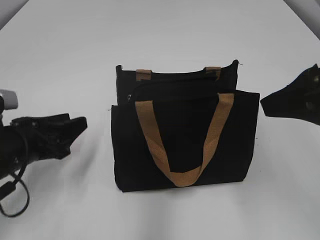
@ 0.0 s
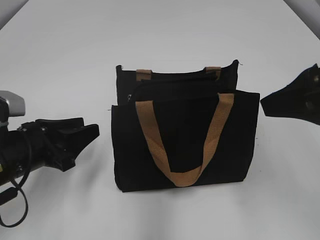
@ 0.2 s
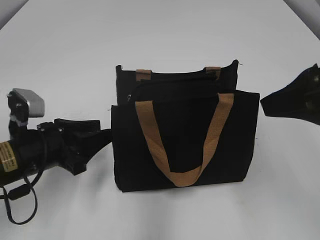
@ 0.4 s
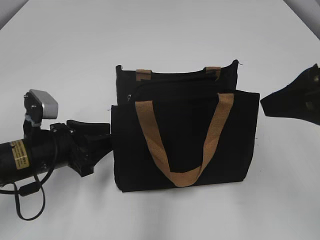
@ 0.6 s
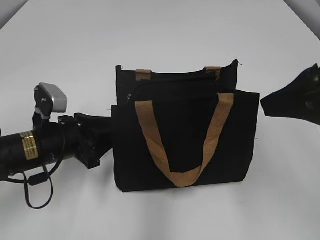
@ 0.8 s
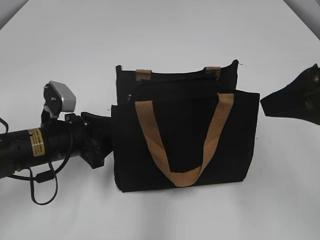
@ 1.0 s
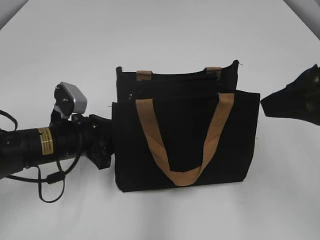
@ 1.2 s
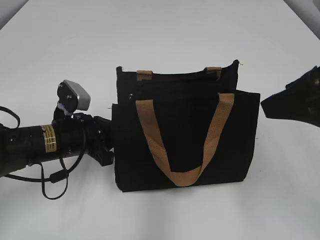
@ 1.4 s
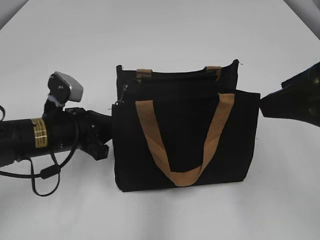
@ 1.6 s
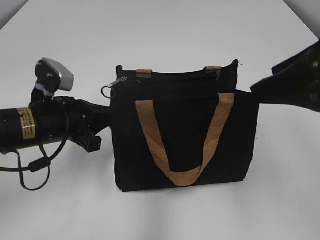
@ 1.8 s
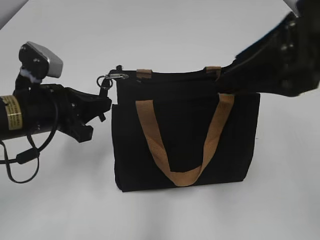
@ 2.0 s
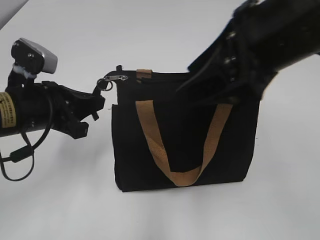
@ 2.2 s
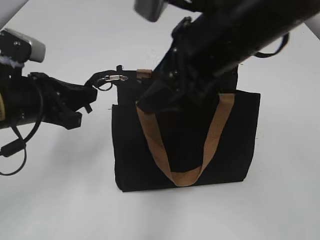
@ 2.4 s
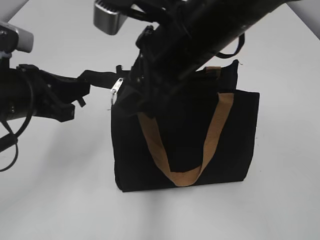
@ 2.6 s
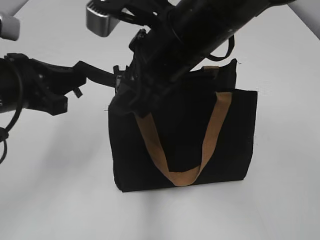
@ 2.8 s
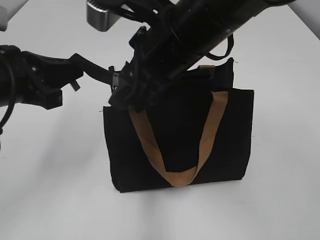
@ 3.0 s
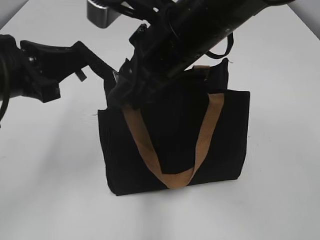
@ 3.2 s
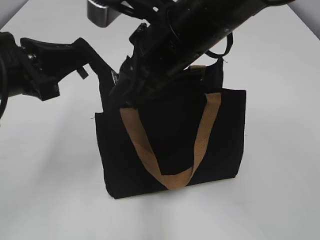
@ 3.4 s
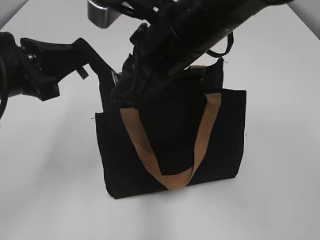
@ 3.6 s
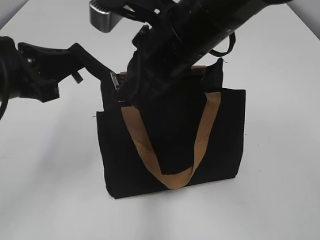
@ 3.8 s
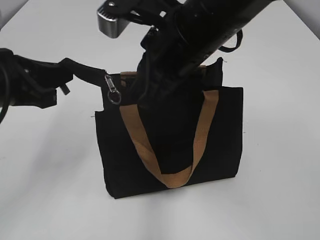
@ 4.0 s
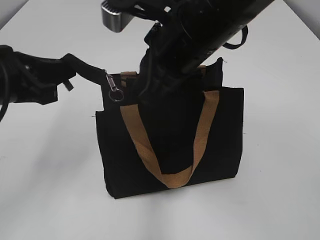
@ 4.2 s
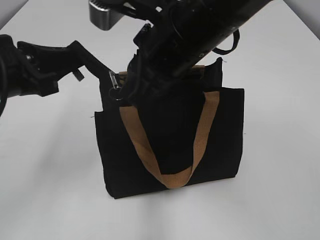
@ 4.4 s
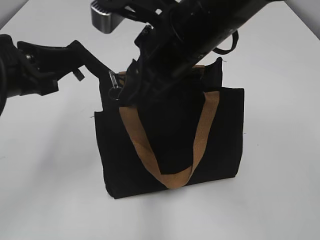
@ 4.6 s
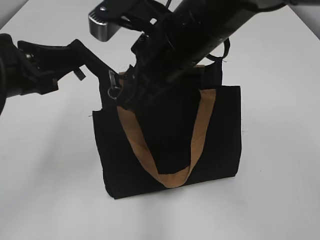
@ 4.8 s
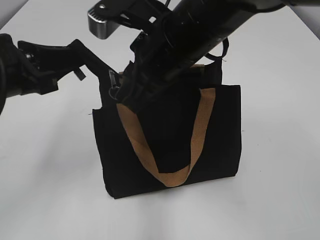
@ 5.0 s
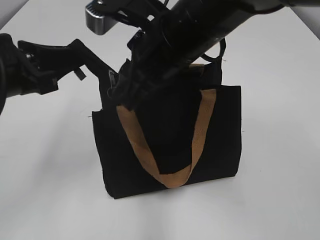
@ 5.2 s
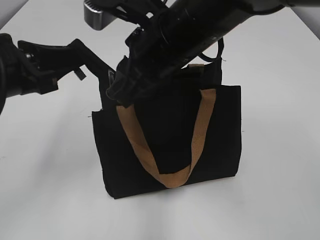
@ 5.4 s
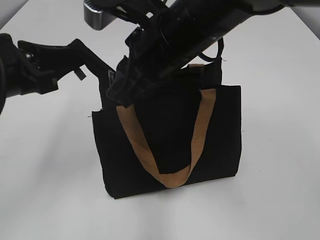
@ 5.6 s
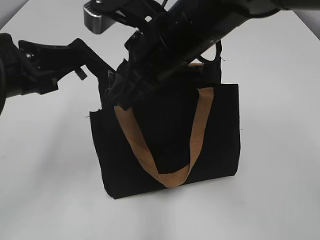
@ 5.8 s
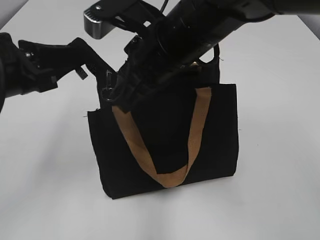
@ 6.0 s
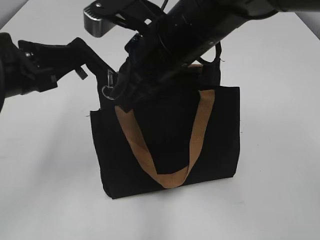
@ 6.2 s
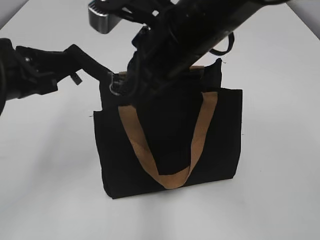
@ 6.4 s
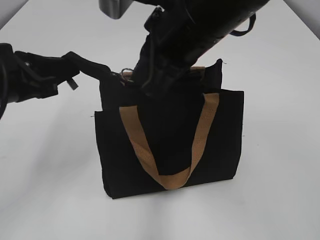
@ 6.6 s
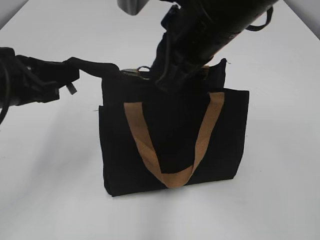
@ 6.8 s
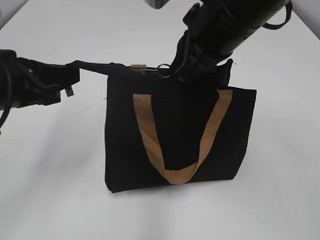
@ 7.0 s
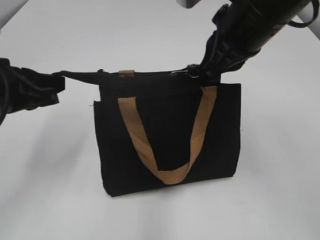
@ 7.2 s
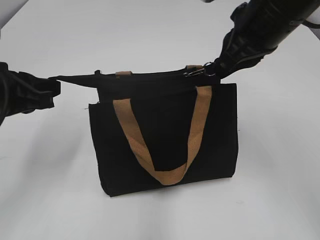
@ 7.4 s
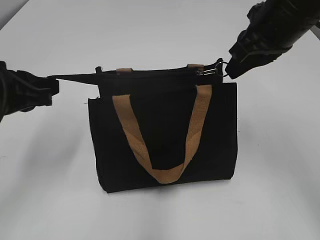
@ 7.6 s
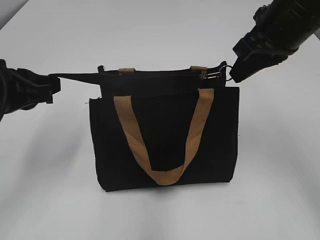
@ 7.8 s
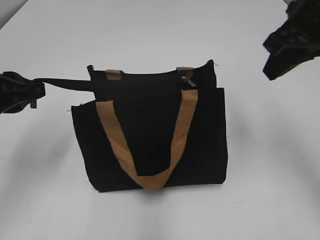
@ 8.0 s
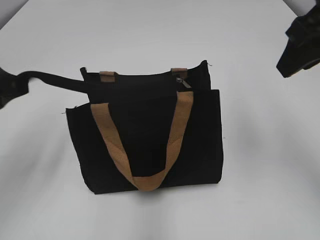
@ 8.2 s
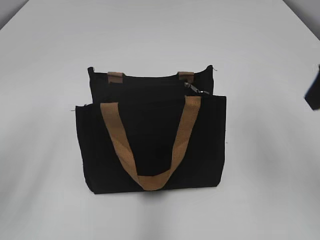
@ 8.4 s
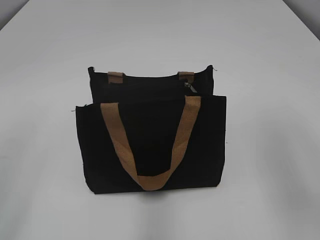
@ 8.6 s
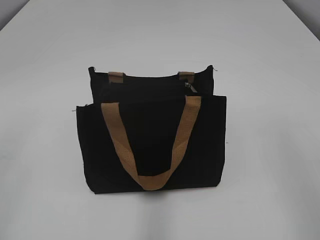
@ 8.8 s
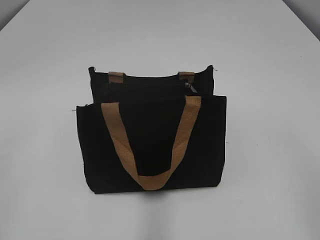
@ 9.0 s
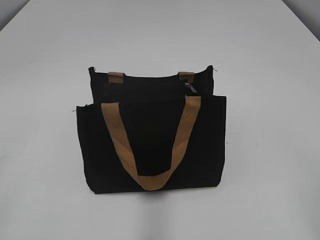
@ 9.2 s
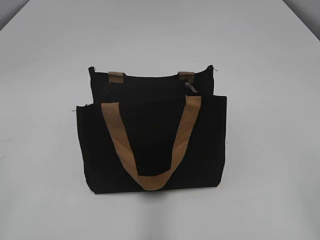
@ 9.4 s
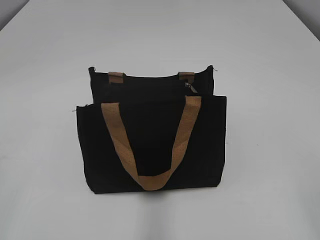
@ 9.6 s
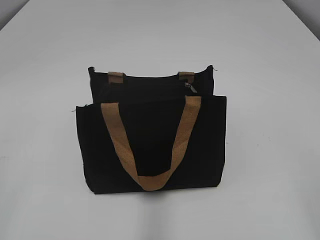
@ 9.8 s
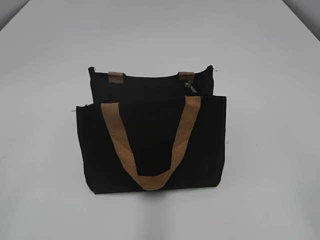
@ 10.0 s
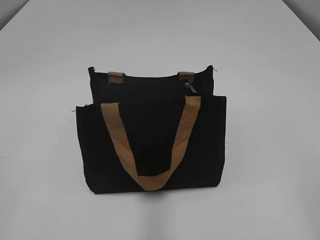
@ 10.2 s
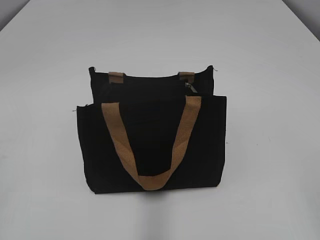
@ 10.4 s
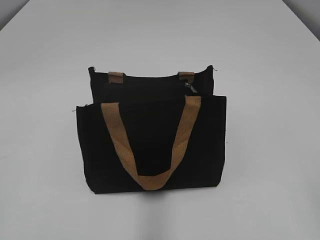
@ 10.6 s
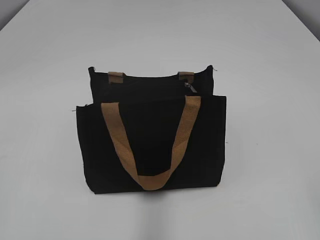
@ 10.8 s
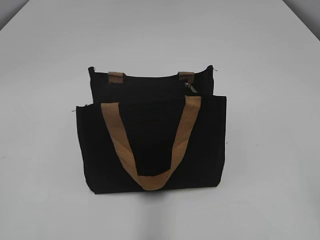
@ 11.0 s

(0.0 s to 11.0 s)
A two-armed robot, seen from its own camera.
Step, 0.0 s - 7.8 s: Zip up the bag with your right hand.
Step, 8.0 s - 8.2 s: Grab the zipper with your left hand.
0.0 s - 1.6 s: The left gripper is displaced to the right by some 5 cm, and closes.
1.6 s - 3.2 s: The left gripper shifts approximately 15 cm upward, while the right gripper travels to the left and forward by approximately 20 cm.
3.2 s - 4.8 s: The right gripper closes, then reopens.
4.8 s - 6.2 s: The right gripper closes.
6.2 s - 7.8 s: The right gripper travels to the right by about 15 cm.
7.8 s - 9.4 s: The right gripper travels backward by approximately 30 cm, and opens. Meanwhile the left gripper shifts some 25 cm backward and to the left, and opens.

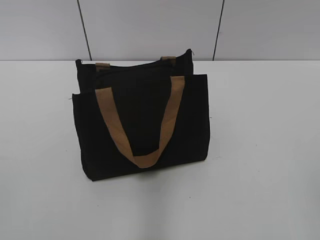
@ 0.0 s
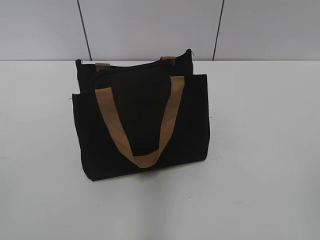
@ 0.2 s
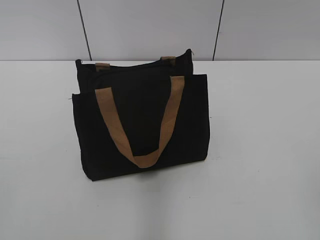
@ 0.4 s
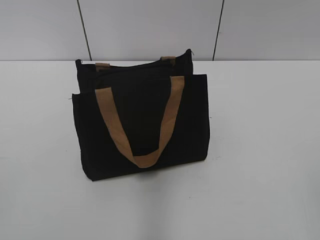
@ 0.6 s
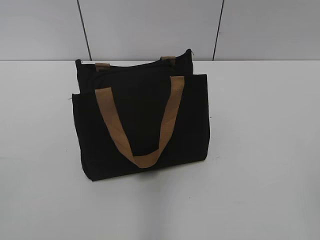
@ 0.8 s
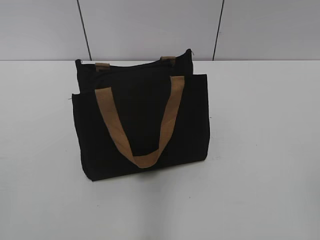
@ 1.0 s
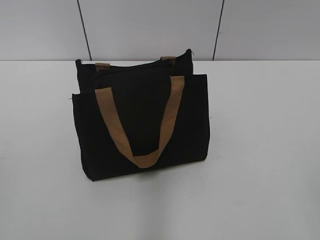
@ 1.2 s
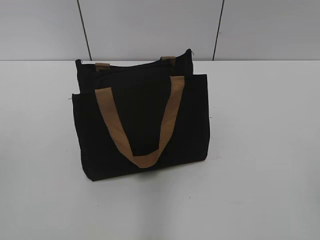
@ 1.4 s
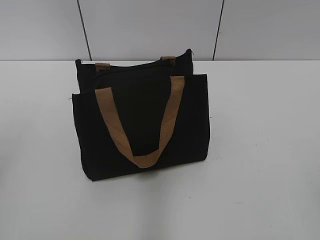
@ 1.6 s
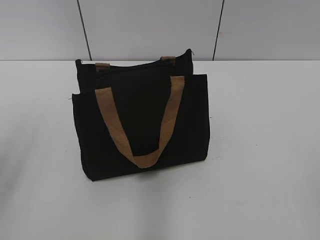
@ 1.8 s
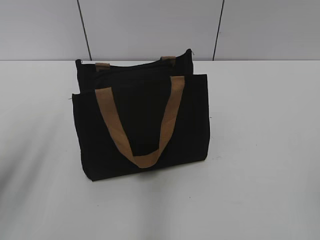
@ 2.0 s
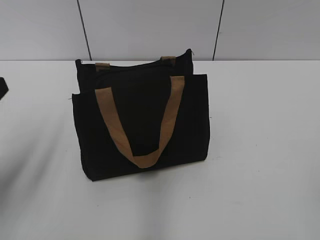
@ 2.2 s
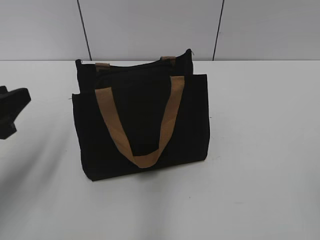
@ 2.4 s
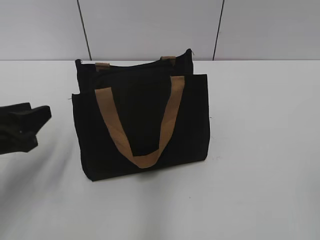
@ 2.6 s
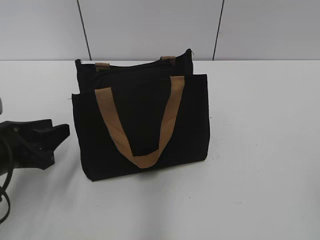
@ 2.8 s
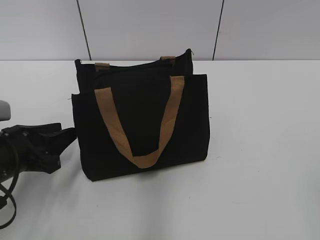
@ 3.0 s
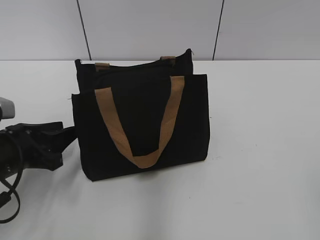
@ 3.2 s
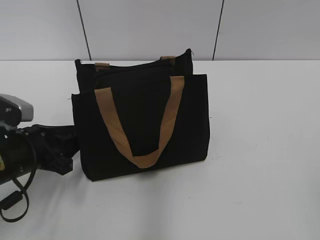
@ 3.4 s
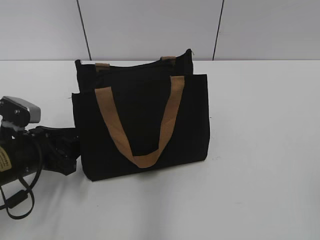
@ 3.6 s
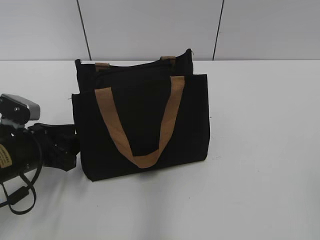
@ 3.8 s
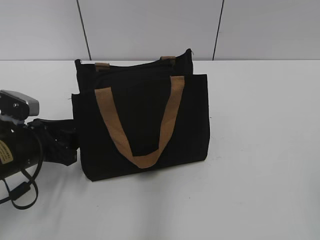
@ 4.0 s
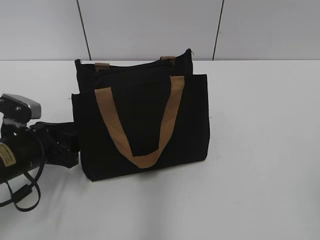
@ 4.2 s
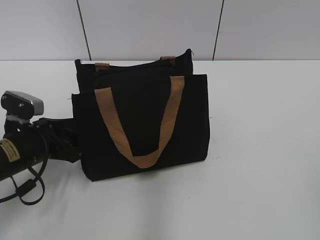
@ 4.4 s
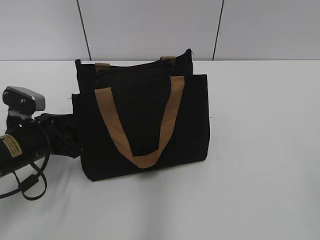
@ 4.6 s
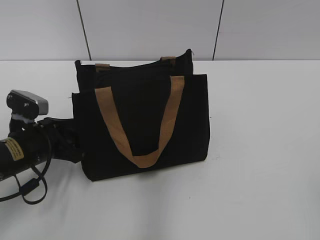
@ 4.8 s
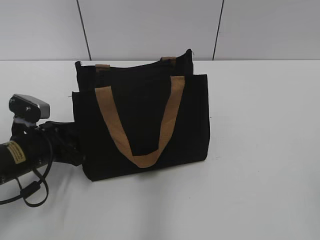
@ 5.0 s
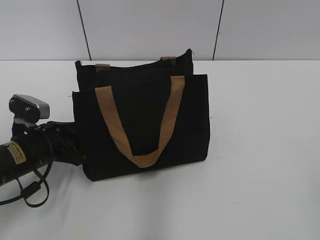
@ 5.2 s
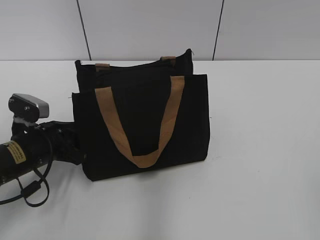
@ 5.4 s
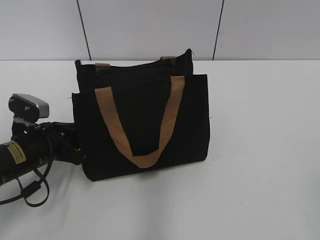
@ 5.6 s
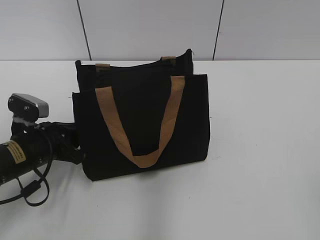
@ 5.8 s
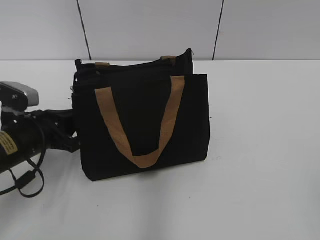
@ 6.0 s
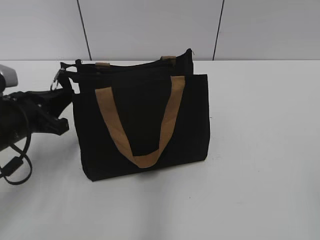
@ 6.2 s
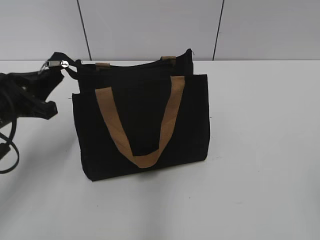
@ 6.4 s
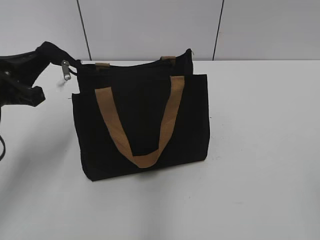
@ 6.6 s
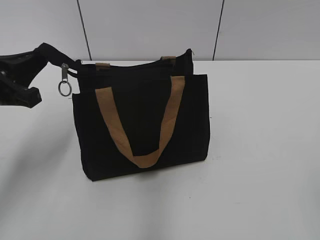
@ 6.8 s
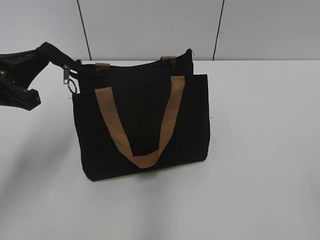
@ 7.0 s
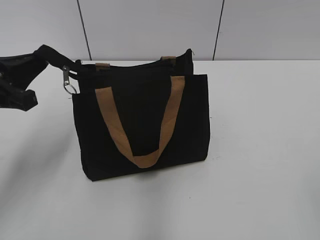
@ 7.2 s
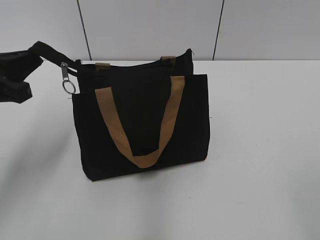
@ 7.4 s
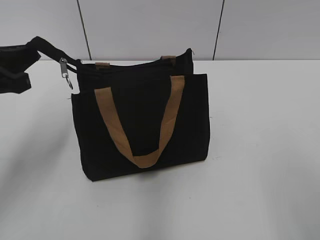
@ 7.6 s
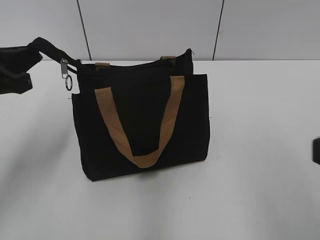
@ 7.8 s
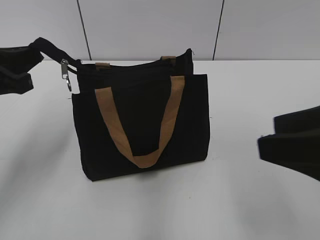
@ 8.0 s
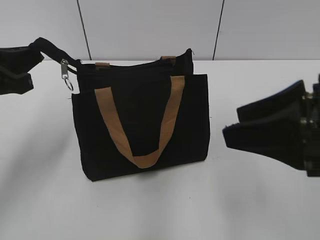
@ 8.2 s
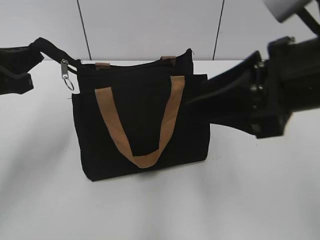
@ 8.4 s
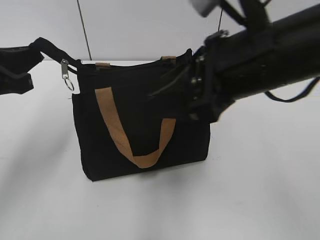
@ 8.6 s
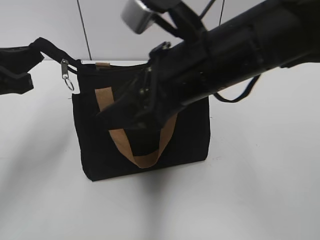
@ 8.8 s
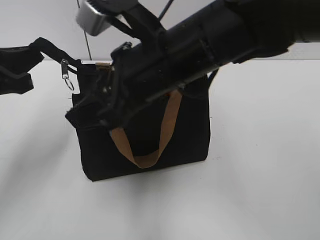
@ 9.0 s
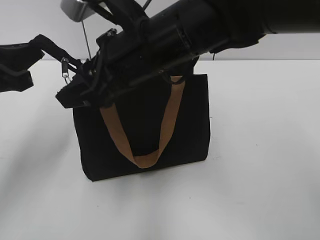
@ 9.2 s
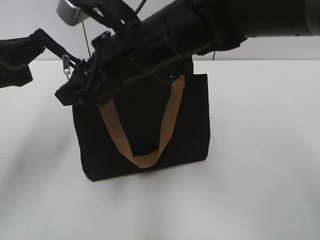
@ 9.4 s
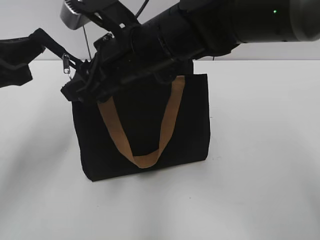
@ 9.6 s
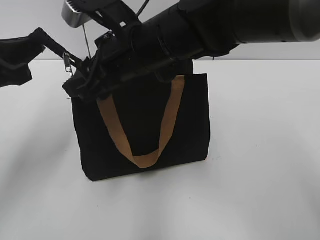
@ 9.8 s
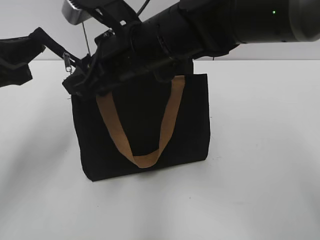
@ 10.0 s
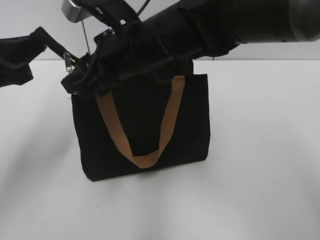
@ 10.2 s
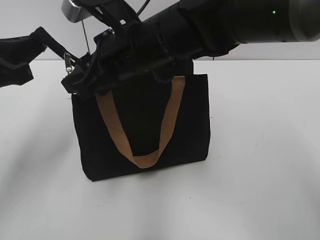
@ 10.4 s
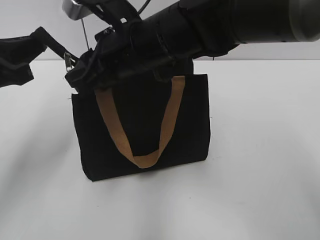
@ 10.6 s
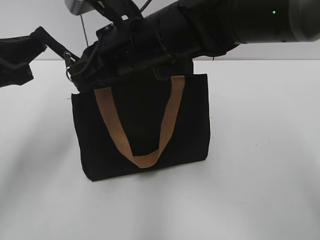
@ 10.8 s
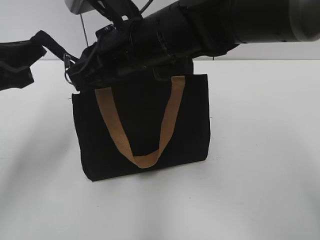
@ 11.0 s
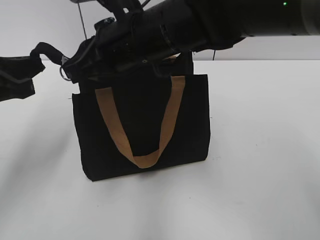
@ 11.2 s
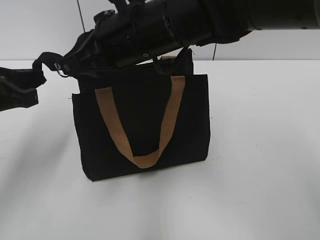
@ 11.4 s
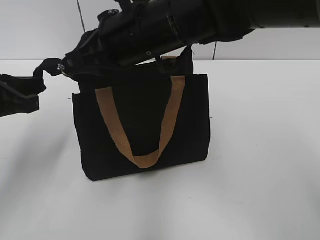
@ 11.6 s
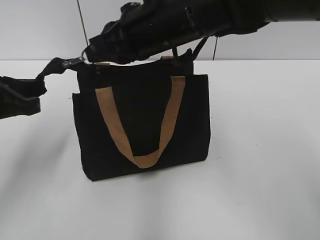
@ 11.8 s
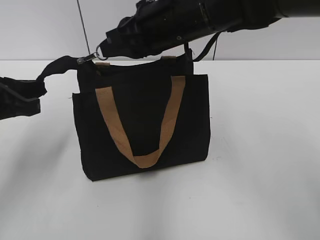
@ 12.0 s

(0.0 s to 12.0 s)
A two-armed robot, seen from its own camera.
1.6 s - 3.0 s: The left gripper is displaced downward and forward by roughly 25 cm.
3.0 s - 4.4 s: The left gripper shifts by some 5 cm.
4.4 s - 6.0 s: The left gripper closes its fingers.
6.0 s - 7.6 s: The left gripper shifts roughly 15 cm upward.
7.6 s - 9.0 s: The right gripper heads to the left and forward, covering some 30 cm.
9.0 s - 10.4 s: The right gripper is displaced forward by about 5 cm.
10.4 s - 12.0 s: The right gripper ends up approximately 5 cm from where it was, and closes its fingers.
